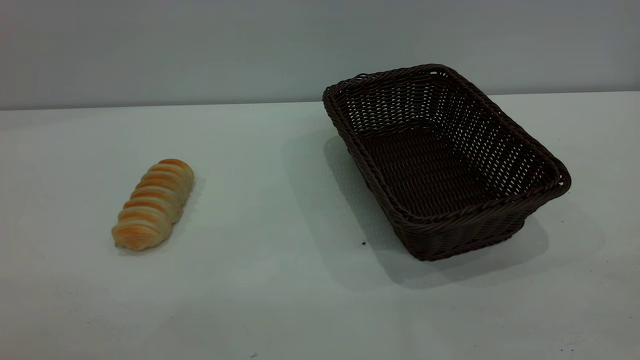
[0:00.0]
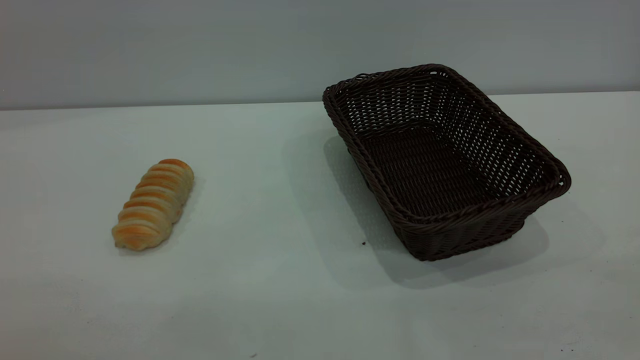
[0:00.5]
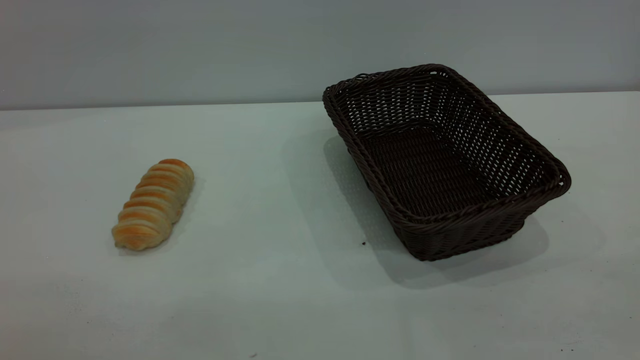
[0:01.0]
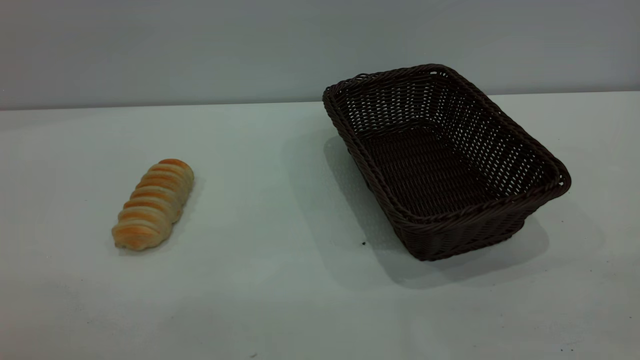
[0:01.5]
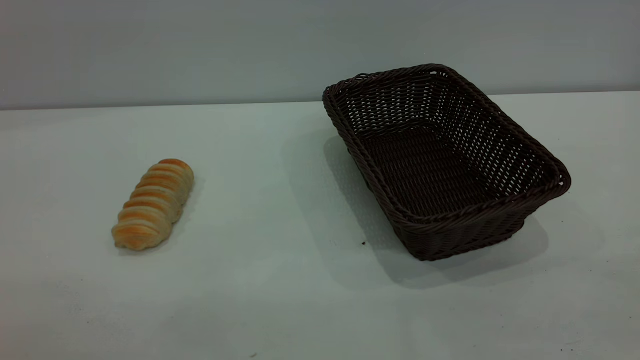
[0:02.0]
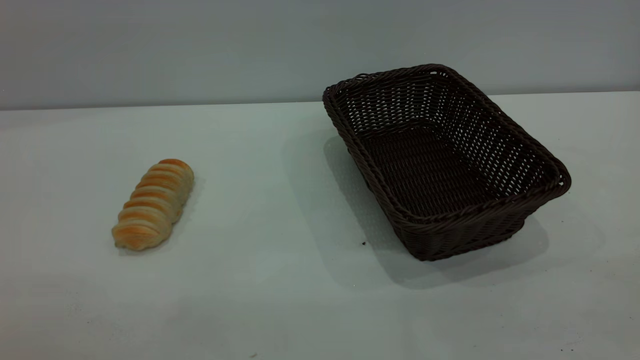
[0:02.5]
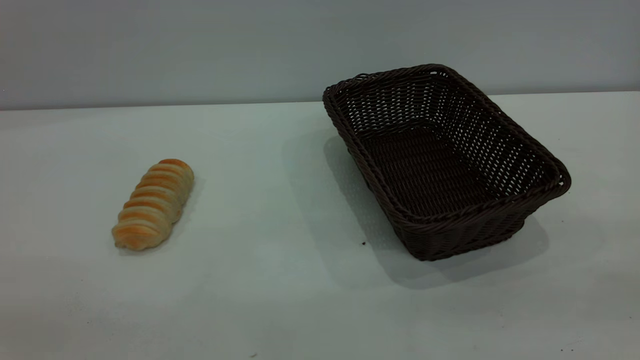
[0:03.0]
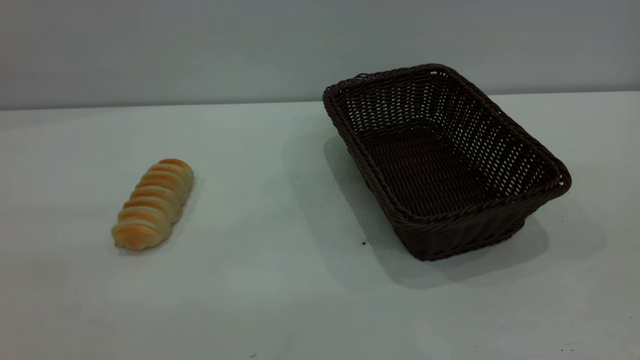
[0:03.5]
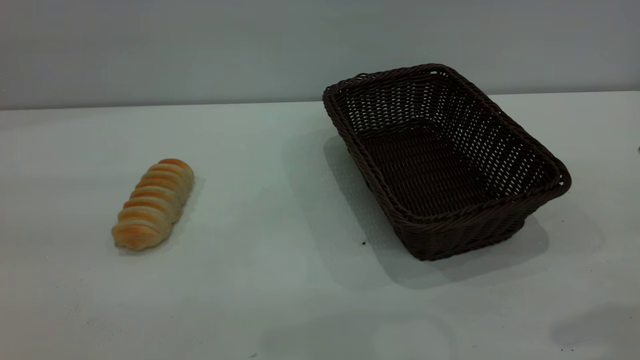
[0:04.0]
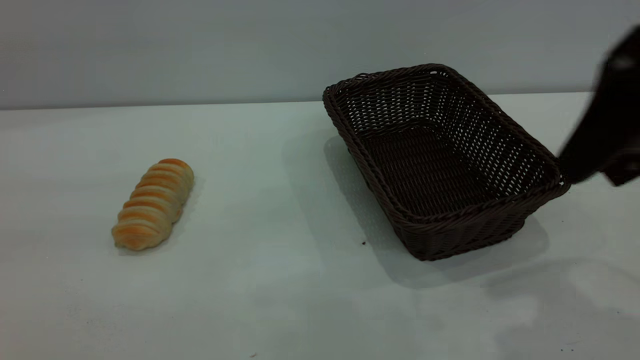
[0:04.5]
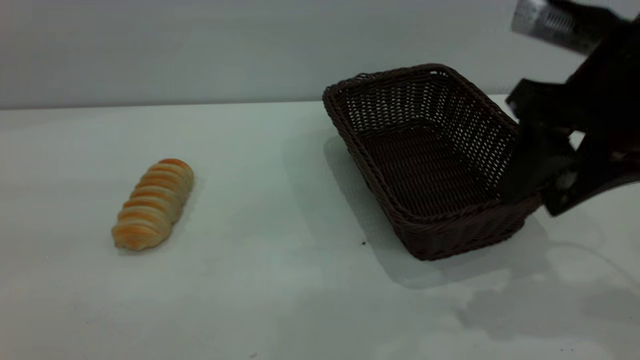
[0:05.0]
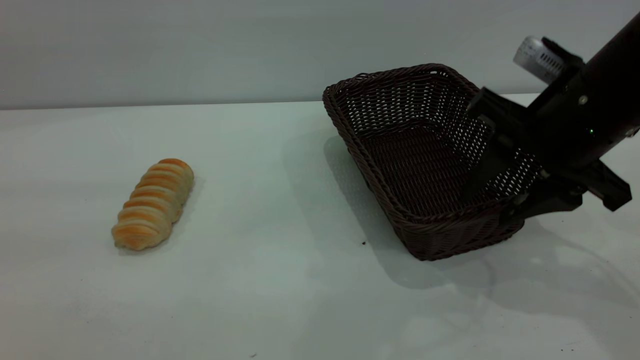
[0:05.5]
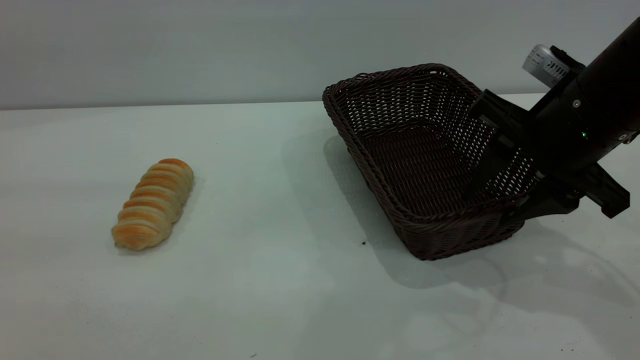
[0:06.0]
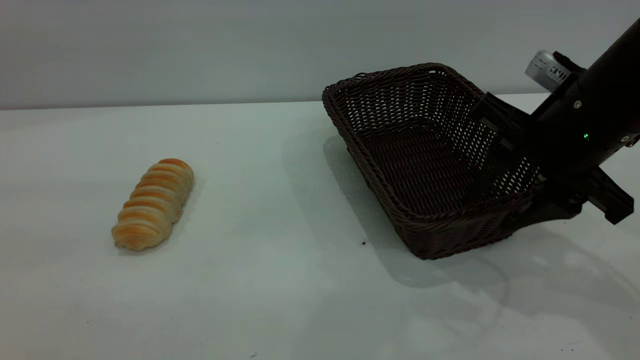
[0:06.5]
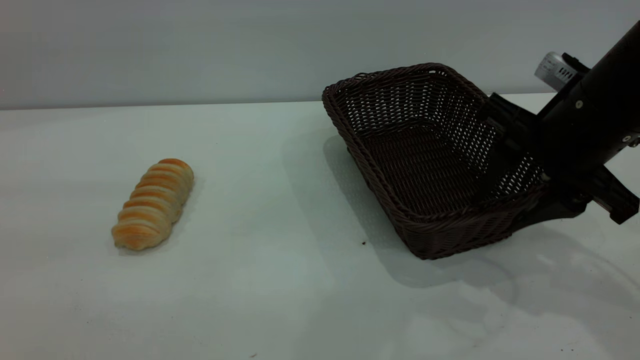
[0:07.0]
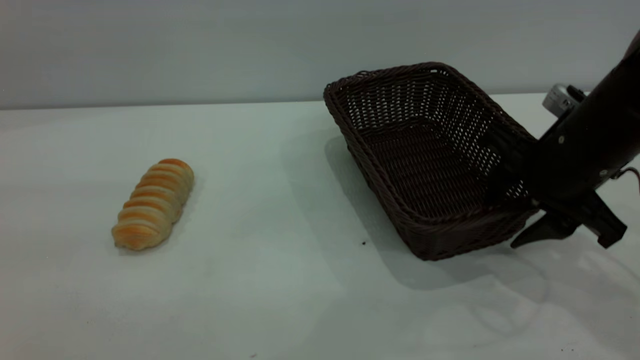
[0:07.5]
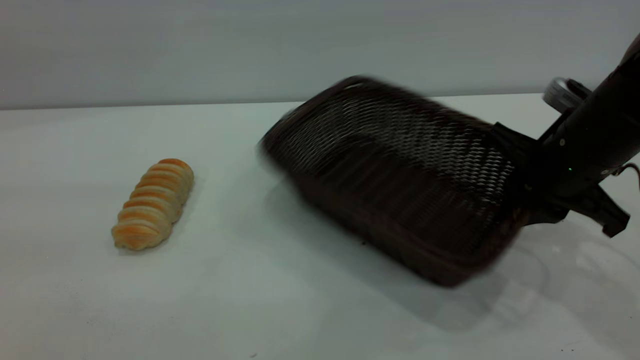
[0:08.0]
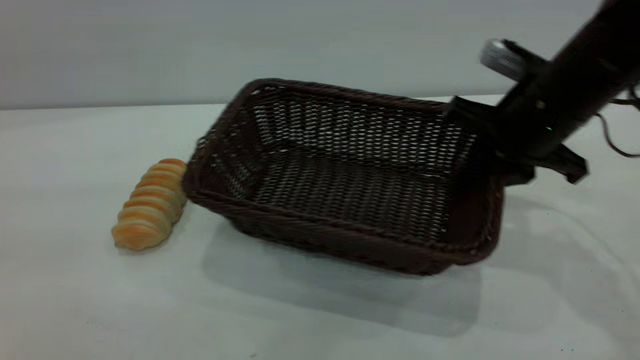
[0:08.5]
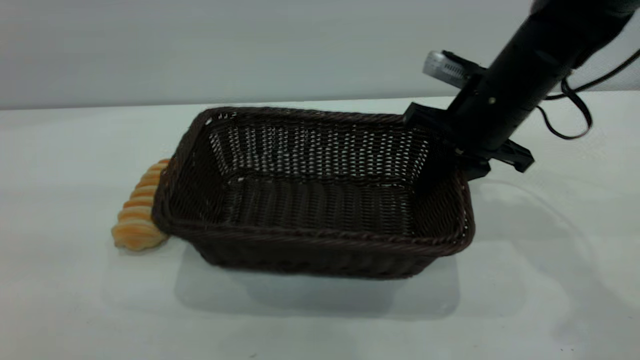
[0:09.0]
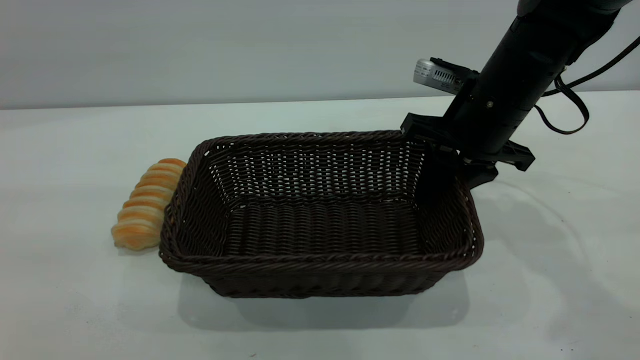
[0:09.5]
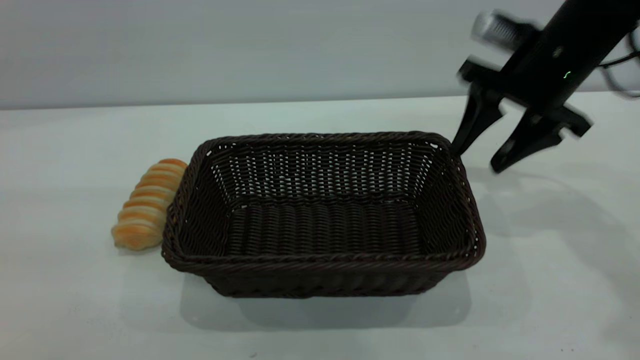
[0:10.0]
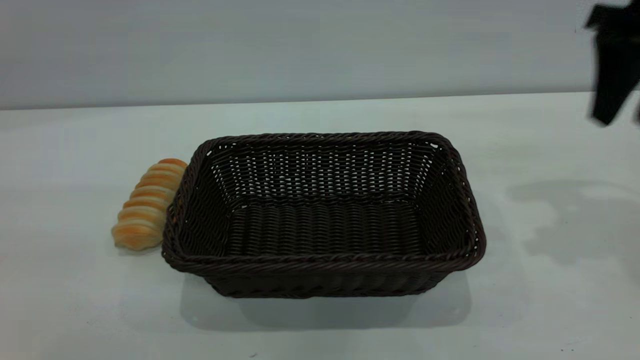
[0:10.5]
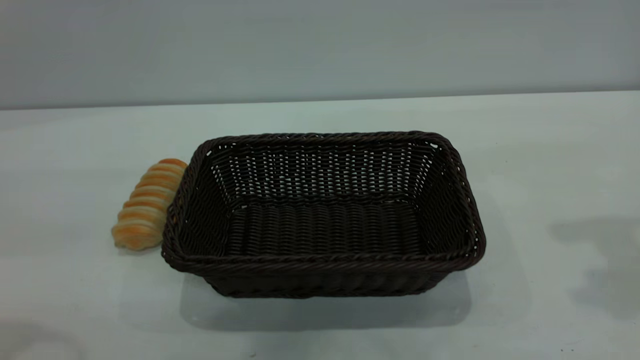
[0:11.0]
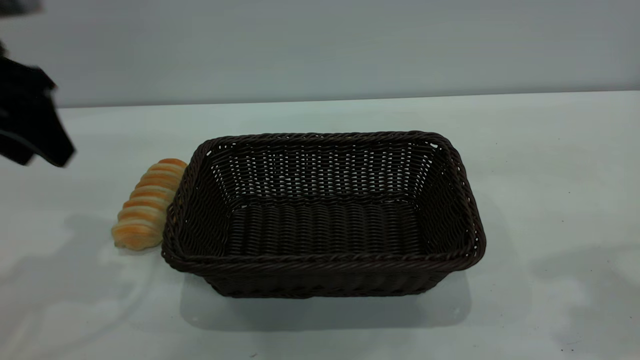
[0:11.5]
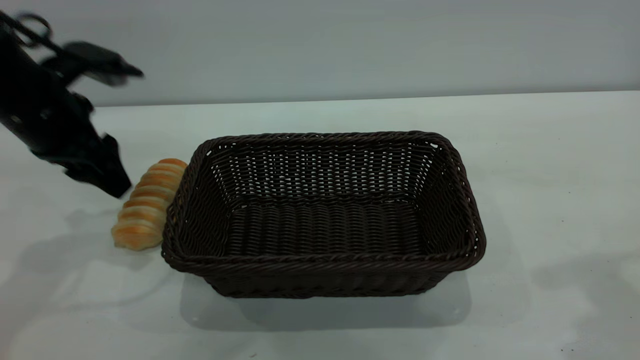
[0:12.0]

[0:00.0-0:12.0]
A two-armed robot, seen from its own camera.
Task of the whole recording: One hand grasps the black basket and places it in the middle of the table, while the other hand picks up the long bread and puts it into the black basket.
Step, 0:00.0 to 0:10.0: Move the basket to the center of view.
0:00.0 to 0:02.0: Neither gripper changes place.
0:04.0 to 0:06.0: The right gripper moves forward, downward and to the left, approximately 20 cm.
0:06.0 to 0:08.0: The right gripper closes its fingers.
0:08.0 to 0:10.0: The right gripper heads forward and upward, covering approximately 10 cm, and opens its fingers.
0:10.0 to 0:12.0: The right gripper travels upward and backward by approximately 25 cm, while the left gripper travels forward and downward by approximately 35 cm.

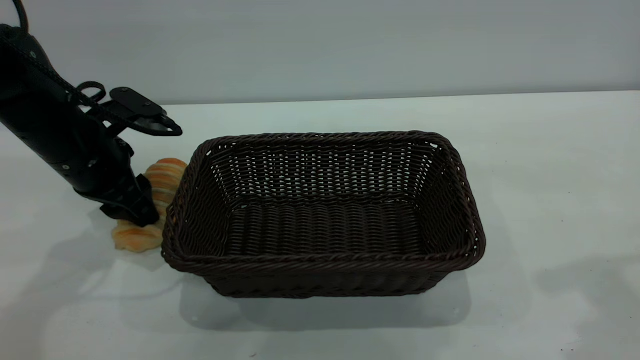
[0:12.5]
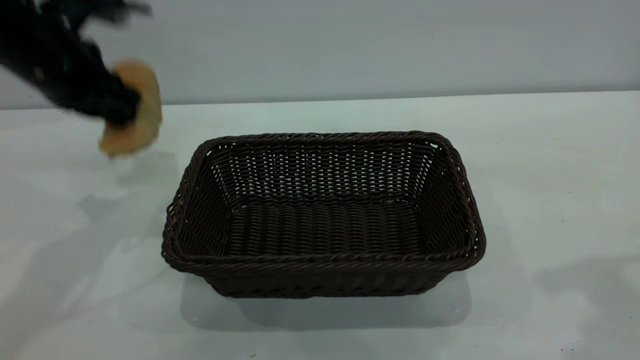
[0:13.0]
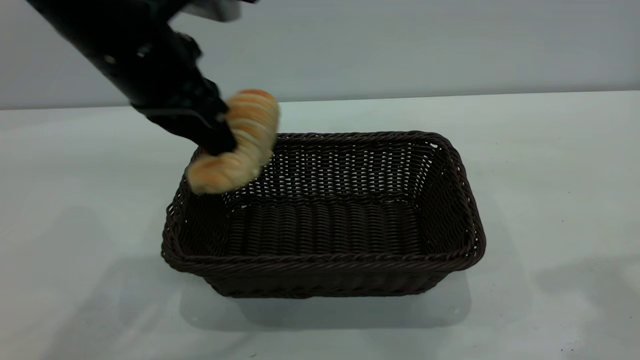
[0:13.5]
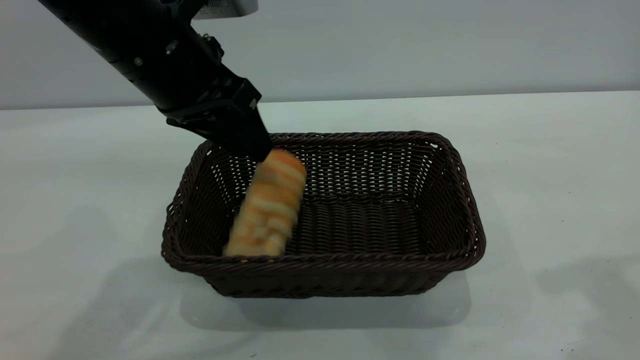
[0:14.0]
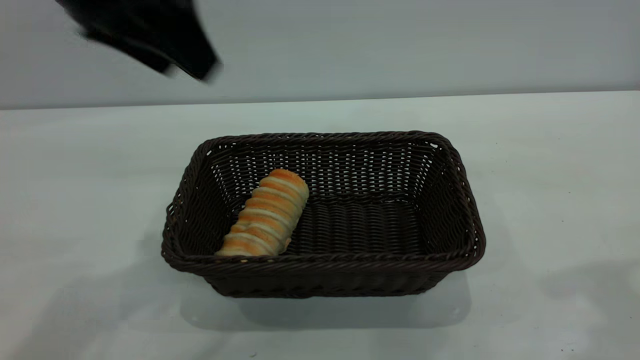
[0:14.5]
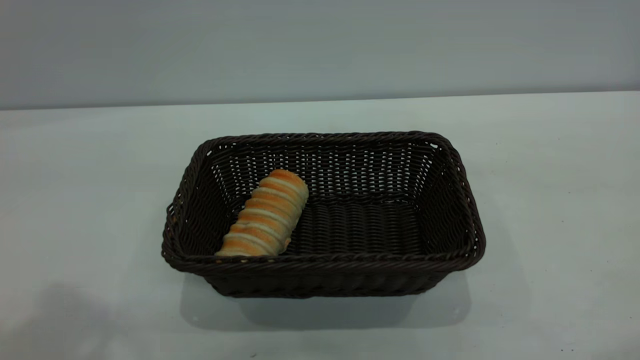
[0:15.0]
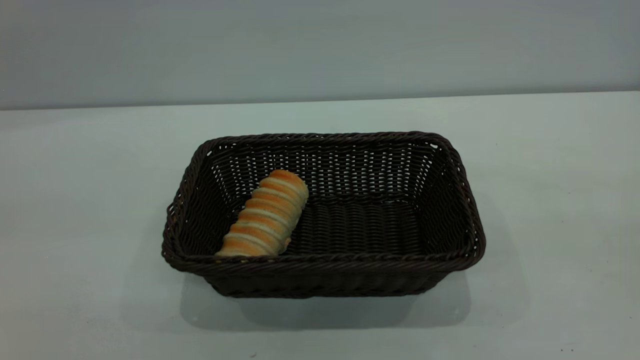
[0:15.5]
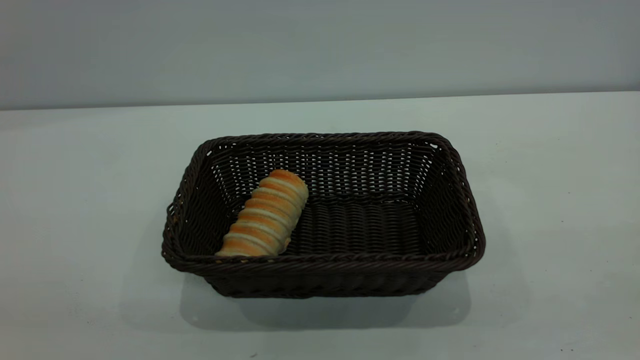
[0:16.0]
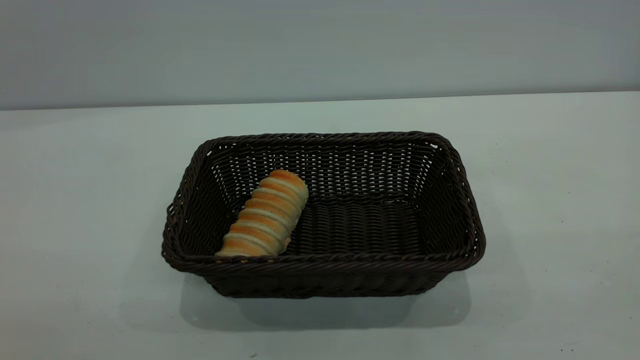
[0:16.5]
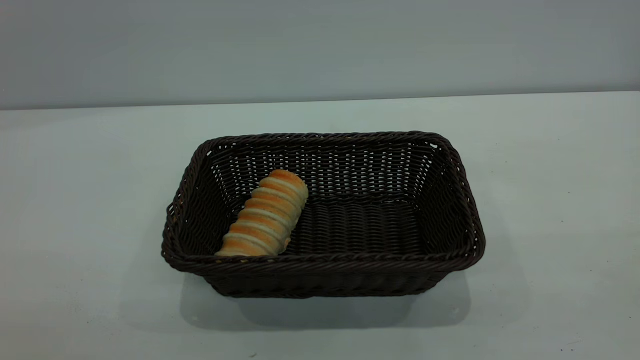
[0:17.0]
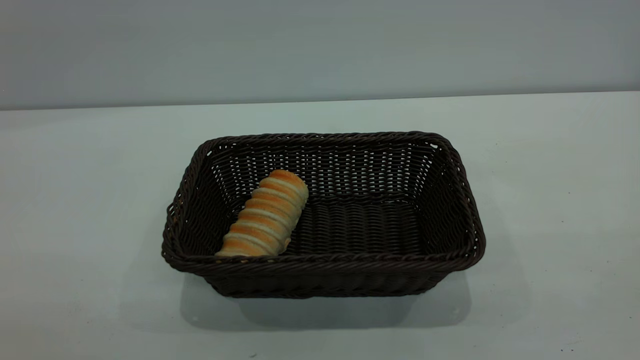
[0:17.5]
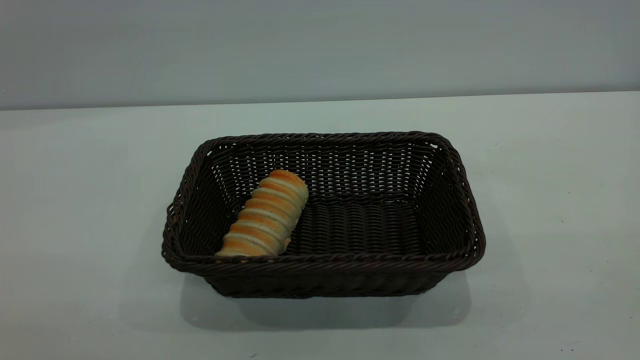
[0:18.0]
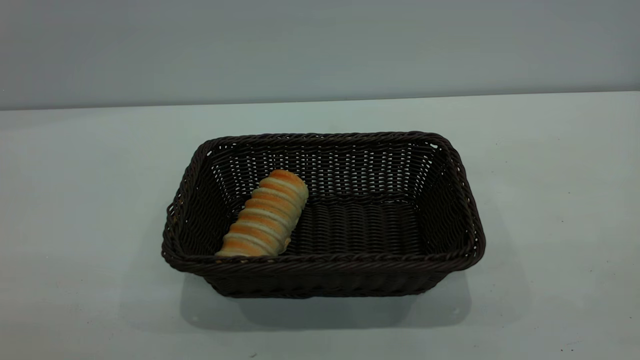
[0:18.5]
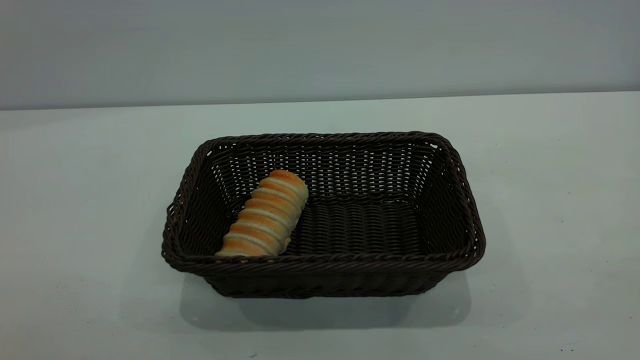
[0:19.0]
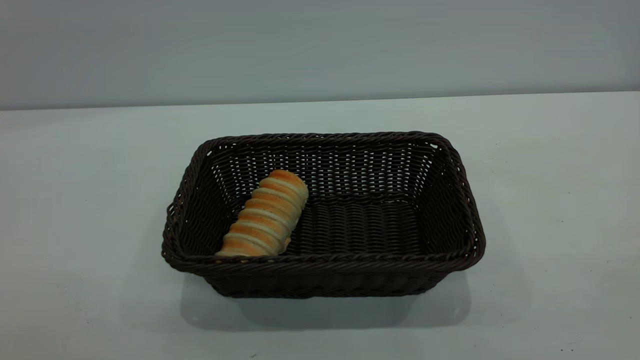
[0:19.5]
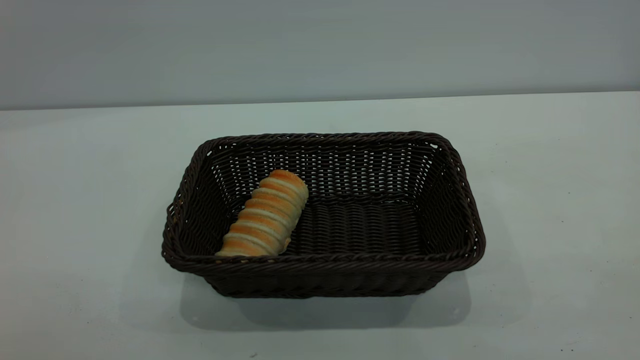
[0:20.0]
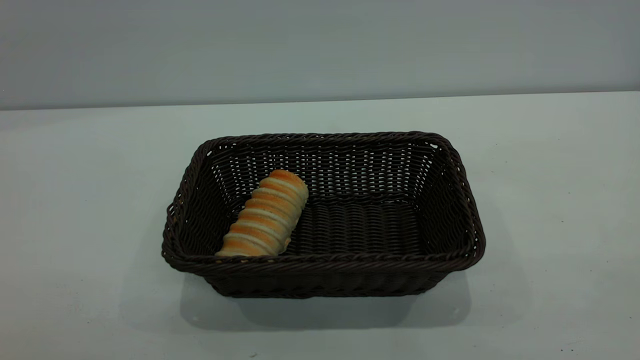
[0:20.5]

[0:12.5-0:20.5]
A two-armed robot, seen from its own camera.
Task of the whole recording: One hand grasps the black basket and places it in the middle of the table, while the other hand picks up the long bread and puts it into the black basket.
Step, 0:13.0 to 0:14.0: place the bread into the basket.
0:12.5 to 0:14.5: The left gripper travels upward by approximately 20 cm, and opens.
0:14.5 to 0:16.5: The left gripper moves backward, approximately 30 cm.
